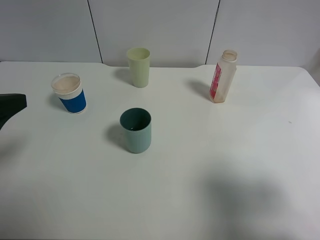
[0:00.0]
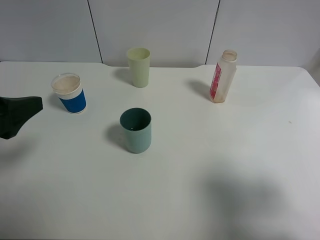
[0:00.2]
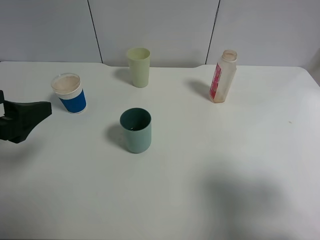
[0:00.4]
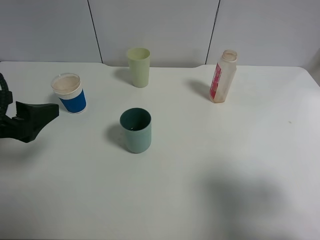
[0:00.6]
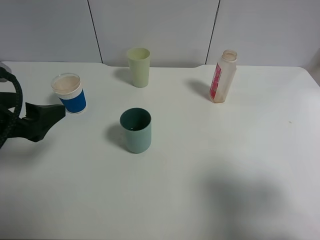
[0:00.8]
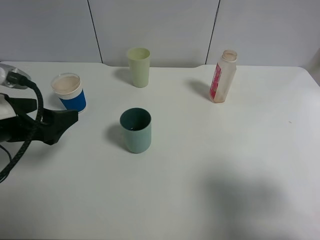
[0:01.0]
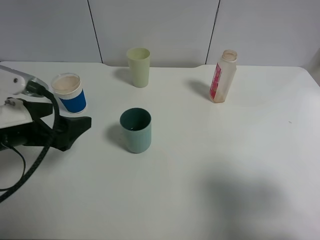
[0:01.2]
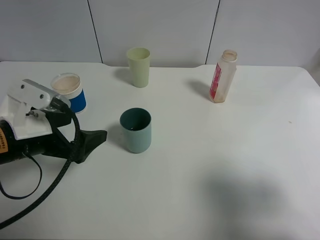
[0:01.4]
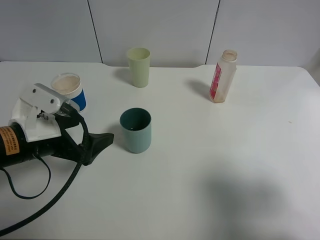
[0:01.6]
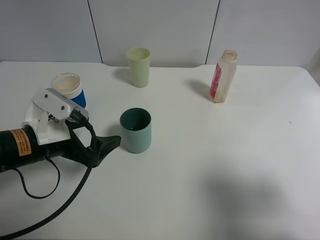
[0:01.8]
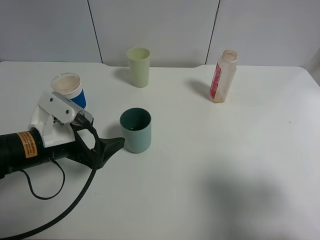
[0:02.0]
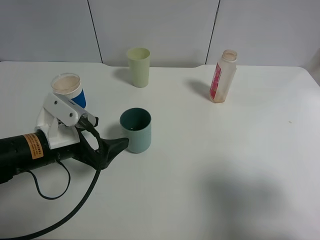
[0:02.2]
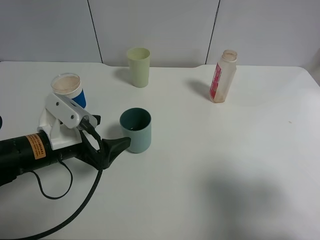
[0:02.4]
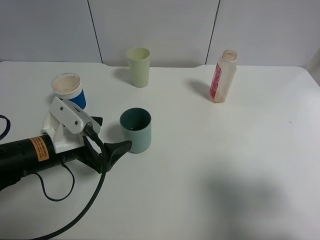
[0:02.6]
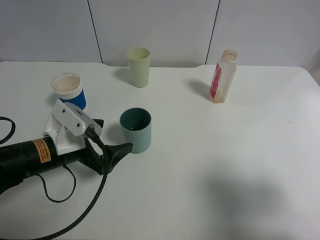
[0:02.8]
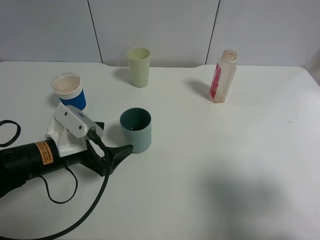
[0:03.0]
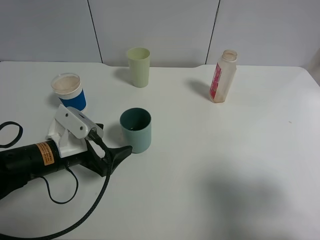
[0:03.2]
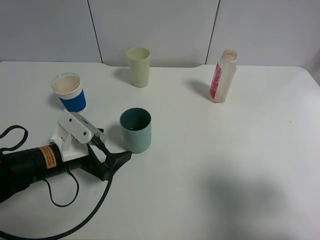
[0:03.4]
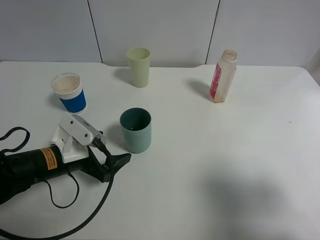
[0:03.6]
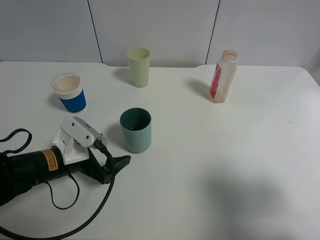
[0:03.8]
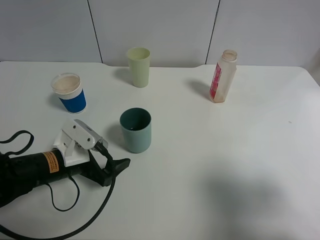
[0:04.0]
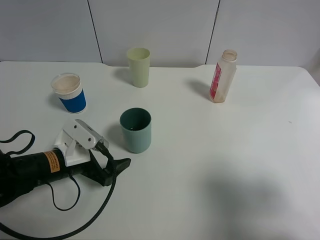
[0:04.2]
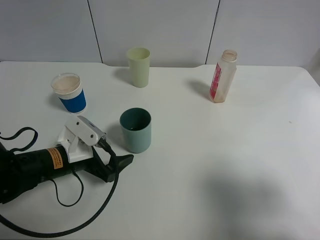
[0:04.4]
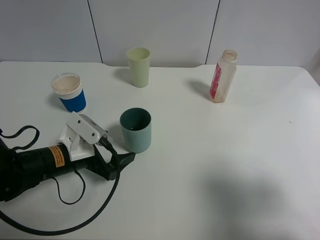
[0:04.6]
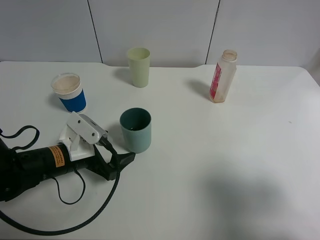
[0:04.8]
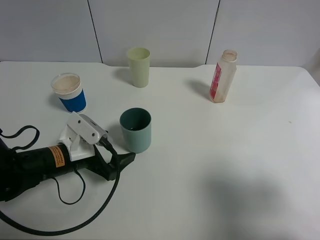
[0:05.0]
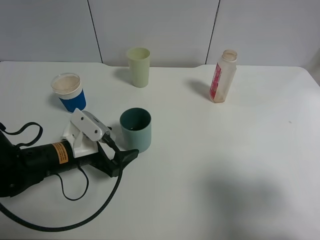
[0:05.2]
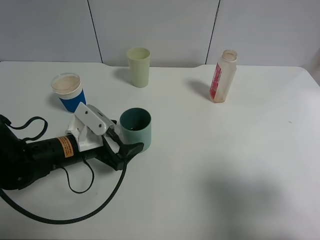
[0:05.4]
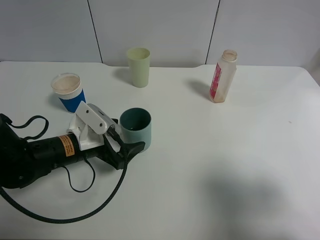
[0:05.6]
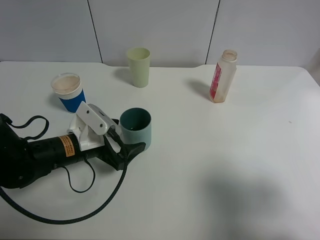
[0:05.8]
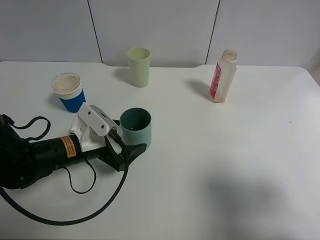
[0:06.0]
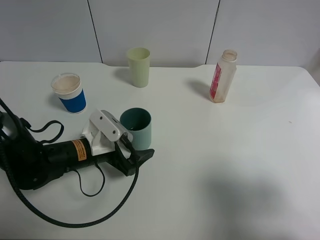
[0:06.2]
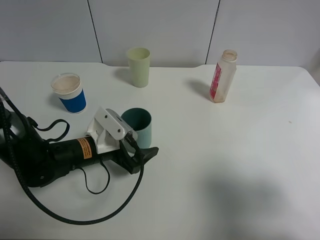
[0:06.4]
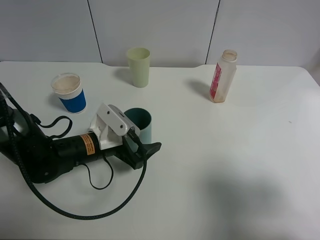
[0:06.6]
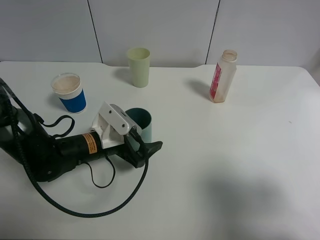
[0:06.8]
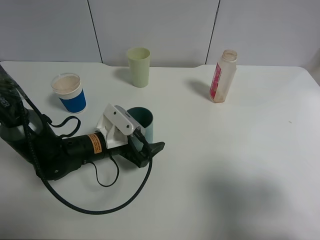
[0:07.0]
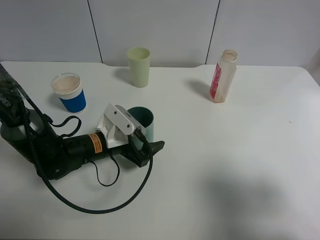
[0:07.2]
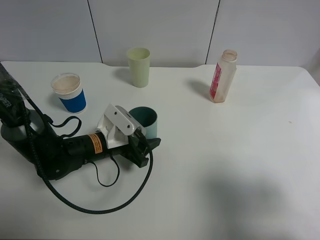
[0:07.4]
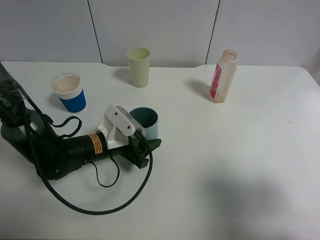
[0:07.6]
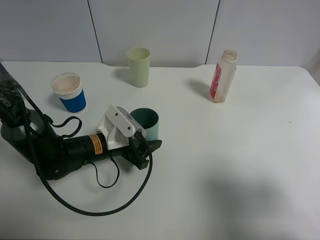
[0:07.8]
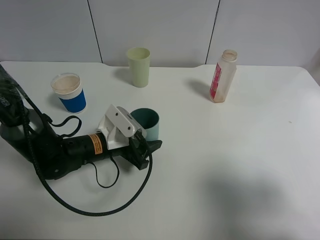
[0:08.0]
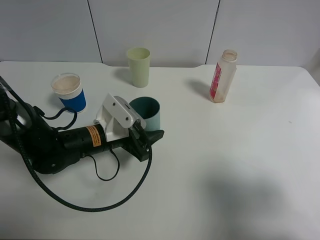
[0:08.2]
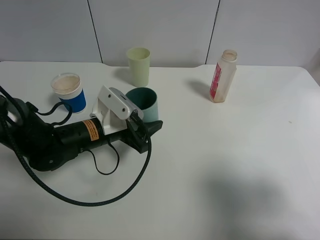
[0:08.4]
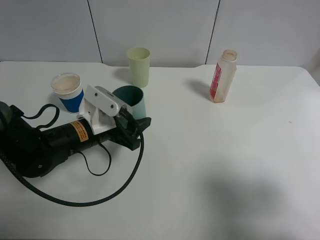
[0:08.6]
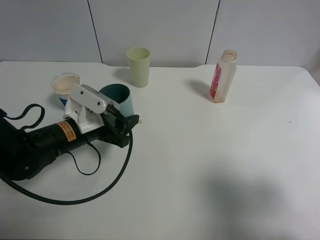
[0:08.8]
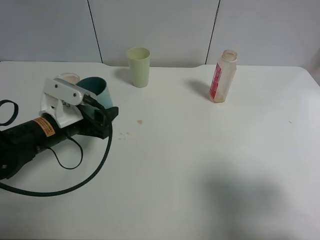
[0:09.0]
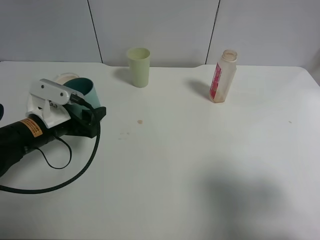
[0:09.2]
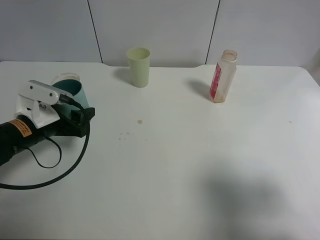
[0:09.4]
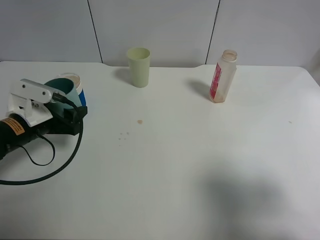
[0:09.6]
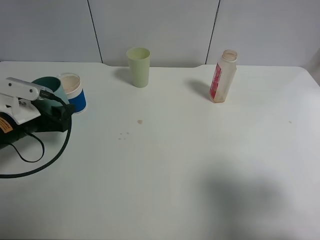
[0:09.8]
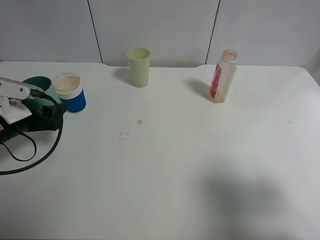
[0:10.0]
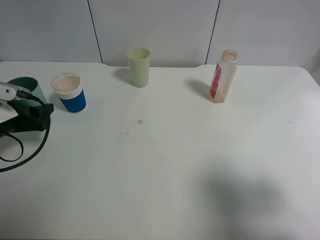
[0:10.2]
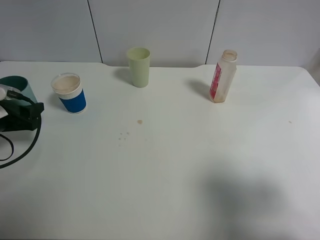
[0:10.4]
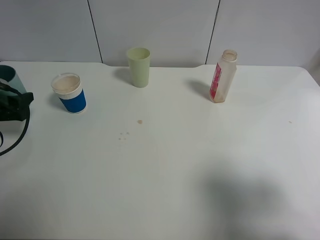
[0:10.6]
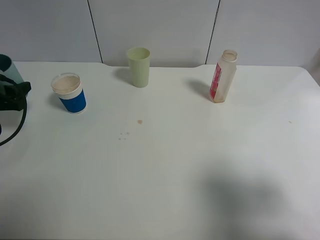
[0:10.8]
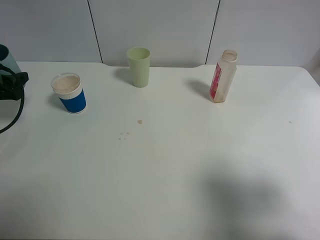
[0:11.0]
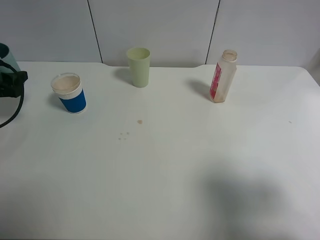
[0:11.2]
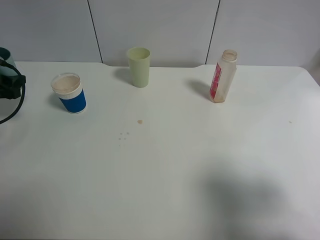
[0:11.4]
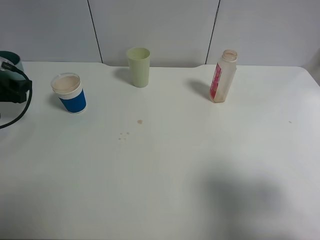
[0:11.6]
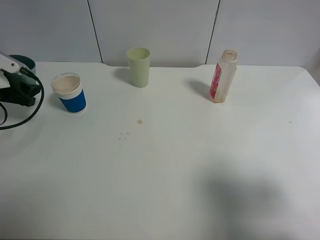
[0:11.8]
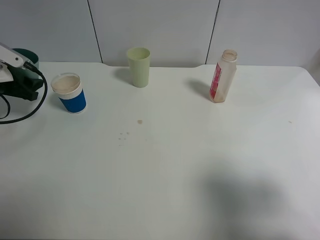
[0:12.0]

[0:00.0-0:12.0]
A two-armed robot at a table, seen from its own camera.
Task of the whole recording: use a clamp to hold the bottle of the drink, pour the beverage into a random cup, then clamp the cup containing the drink and pour the drink into another random cup.
Step, 0:00.0 to 0:08.2: Pick up the blue plastic cup with left gripper.
0:00.0 to 0:01.6: The left gripper travels downward and to the right by some 15 cm.
0:01.6 to 0:03.0: The left gripper heads downward, covering about 5 cm.
0:03.0 to 0:06.0: The grippers make only small movements.
0:06.0 to 0:07.6: The left gripper closes.
0:07.6 to 0:09.0: The left gripper is displaced to the left and upward by approximately 10 cm.
0:09.0 to 0:10.4: The left gripper is displaced to the left by some 15 cm.
0:10.4 to 0:12.0: The left gripper is displaced forward by some 10 cm.

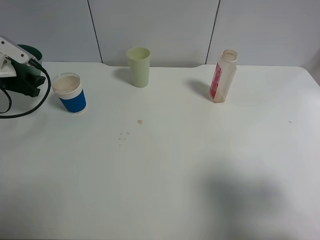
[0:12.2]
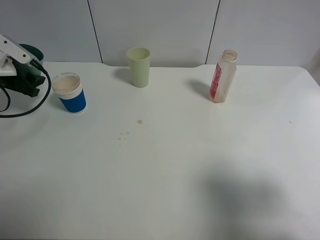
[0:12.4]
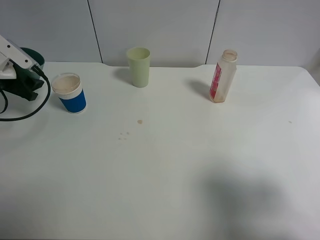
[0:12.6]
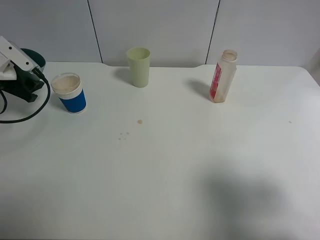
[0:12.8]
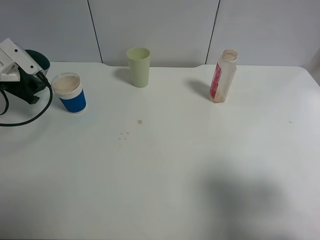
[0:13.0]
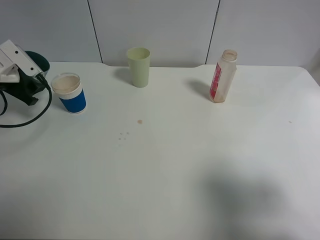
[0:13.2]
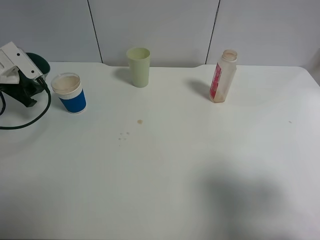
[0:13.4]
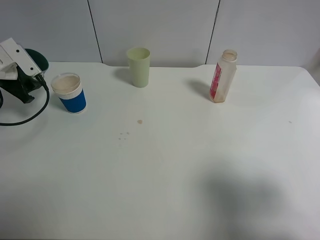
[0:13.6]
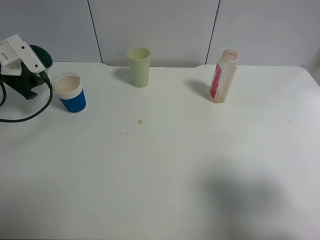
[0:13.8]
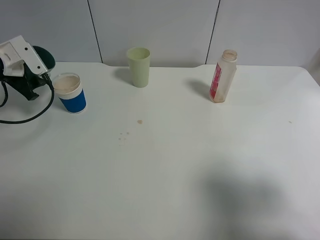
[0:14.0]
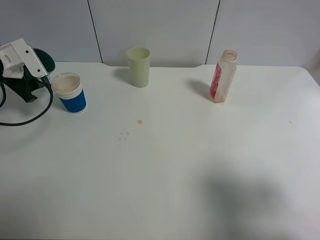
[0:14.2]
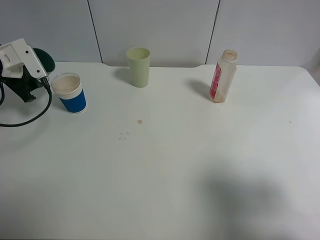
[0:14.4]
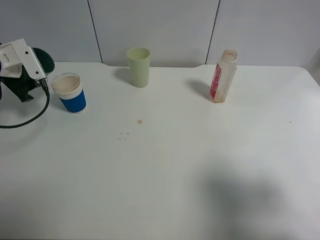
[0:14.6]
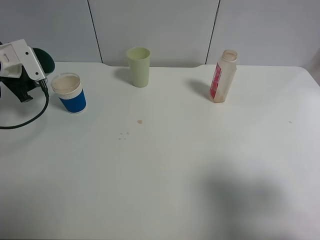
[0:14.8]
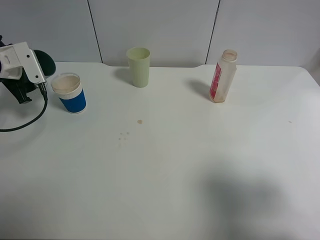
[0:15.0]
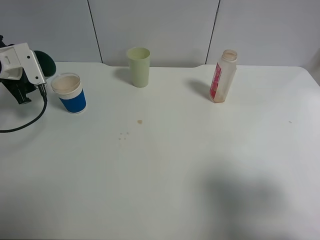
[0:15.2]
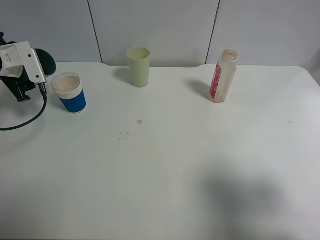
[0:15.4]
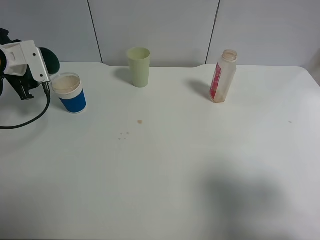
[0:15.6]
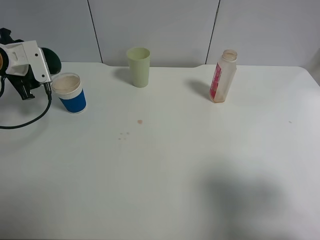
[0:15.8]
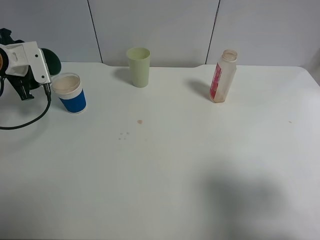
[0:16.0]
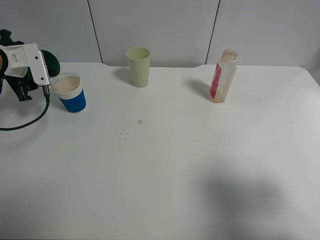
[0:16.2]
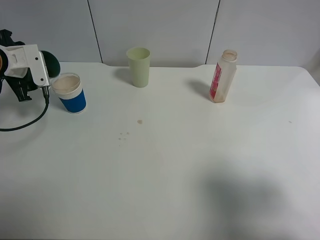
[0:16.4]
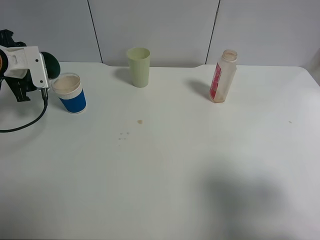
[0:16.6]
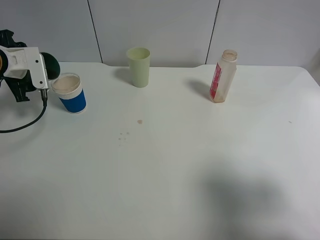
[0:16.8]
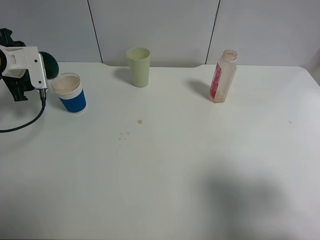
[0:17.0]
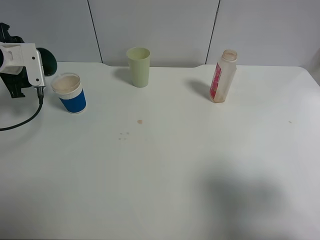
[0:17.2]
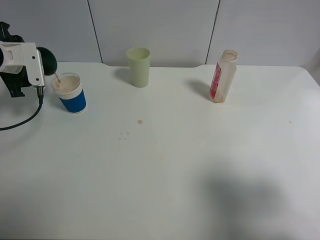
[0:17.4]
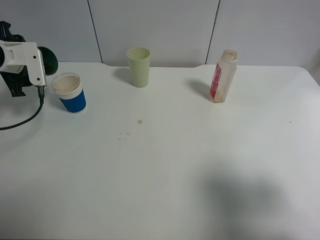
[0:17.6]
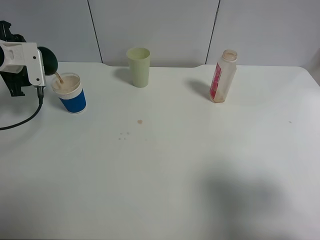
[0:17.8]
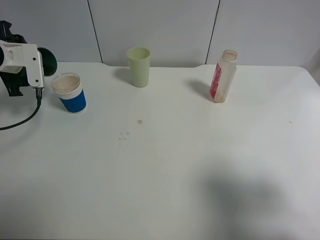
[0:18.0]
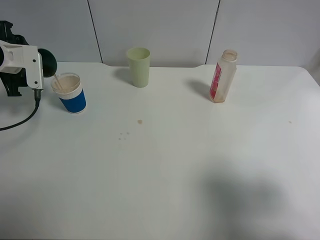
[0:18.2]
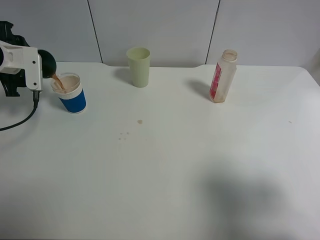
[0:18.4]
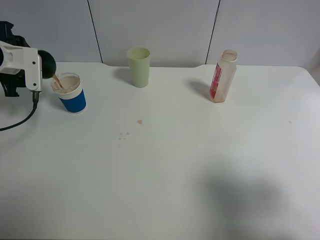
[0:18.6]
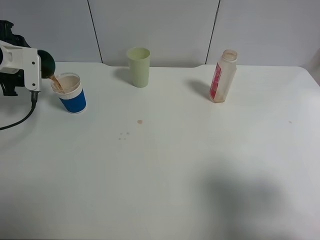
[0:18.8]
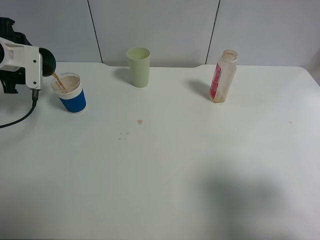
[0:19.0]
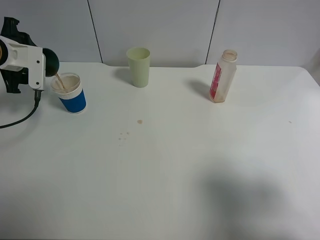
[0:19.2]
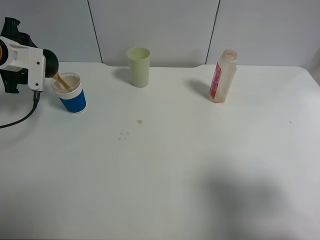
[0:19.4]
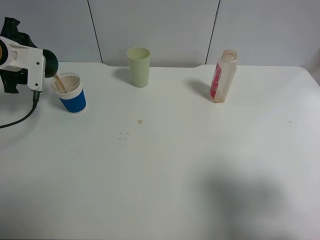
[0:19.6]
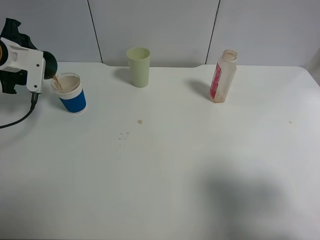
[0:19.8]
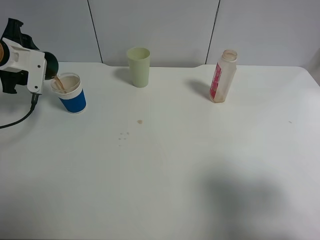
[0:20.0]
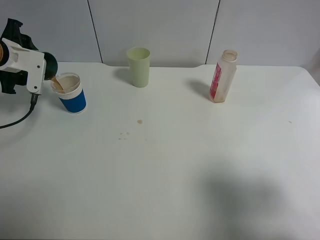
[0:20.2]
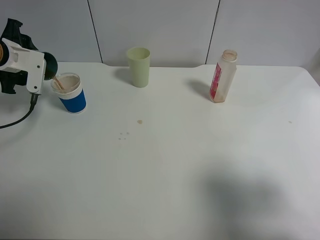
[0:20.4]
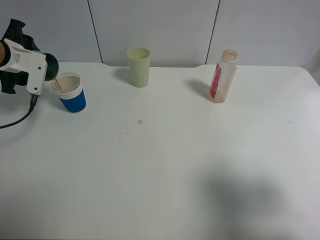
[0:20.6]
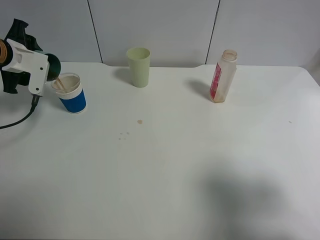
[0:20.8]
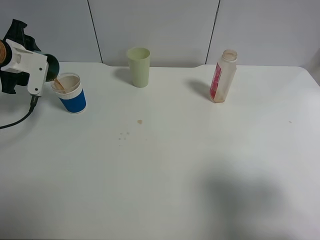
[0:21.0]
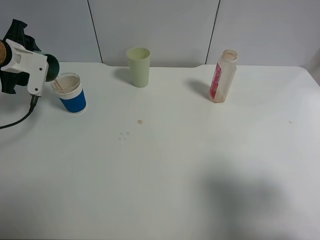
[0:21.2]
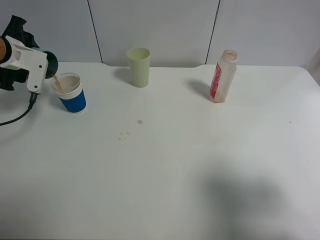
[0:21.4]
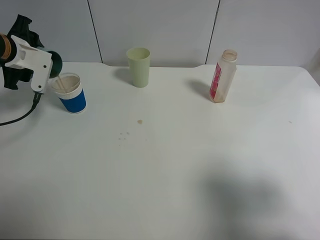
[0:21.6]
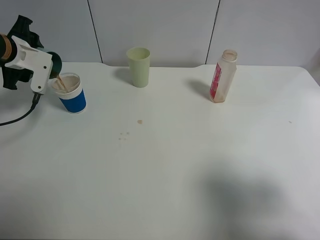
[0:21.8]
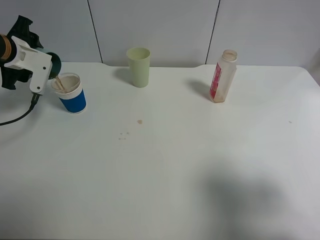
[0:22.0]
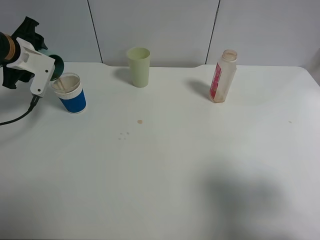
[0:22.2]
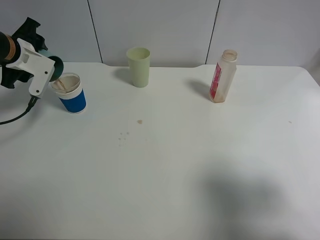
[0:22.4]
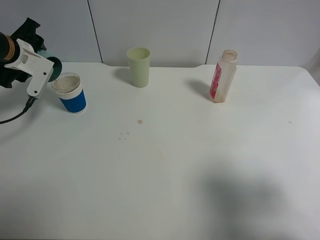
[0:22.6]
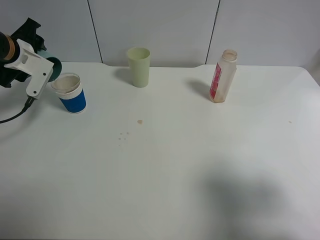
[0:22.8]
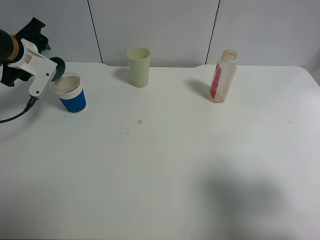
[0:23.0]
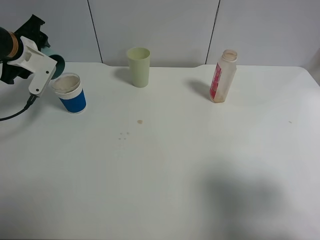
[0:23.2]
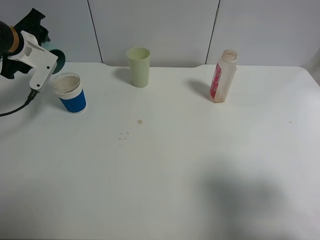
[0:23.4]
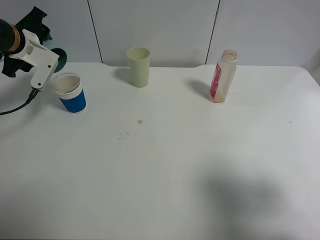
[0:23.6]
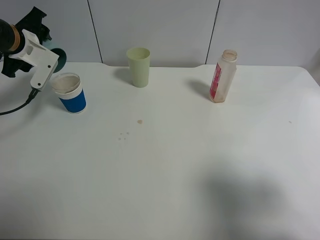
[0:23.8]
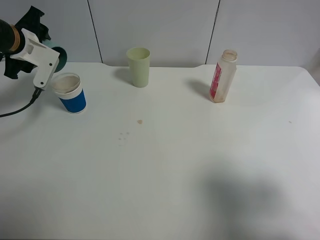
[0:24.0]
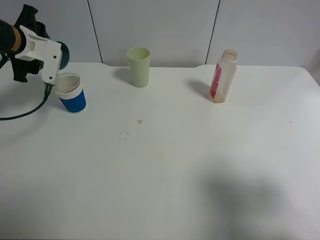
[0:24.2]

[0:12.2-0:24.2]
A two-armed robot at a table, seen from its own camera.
Task of the whole recording: use a clamp to hold the bottle of the drink, pour the beverage into a random cup, then clamp the cup containing the drink and pour the drink into another random cup.
Step, 0:12.2 to 0:23.2: Pour the drink into the paper cup with left gripper.
0:13.8 to 0:15.2: The grippers stay close to where they were, moving slightly.
0:15.2 to 0:16.6: The grippers move only a little.
0:16.6 to 0:18.2: There are only small adjustments of the grippers.
0:18.2 to 0:19.8: There are only small adjustments of the grippers.
0:19.8 to 0:21.2: Both grippers stay put.
0:21.2 to 0:24.2: The grippers move only a little.
